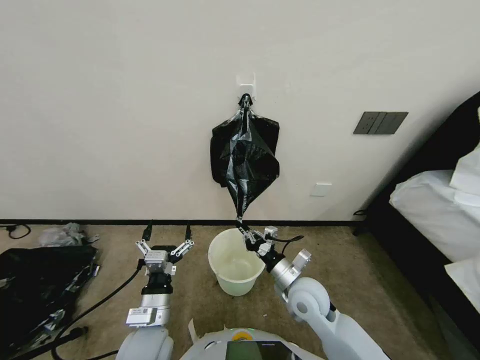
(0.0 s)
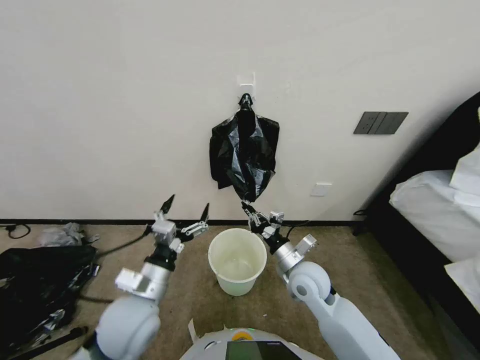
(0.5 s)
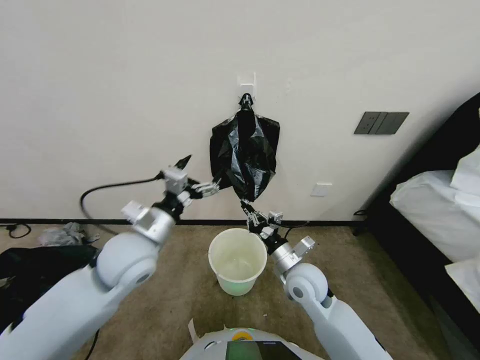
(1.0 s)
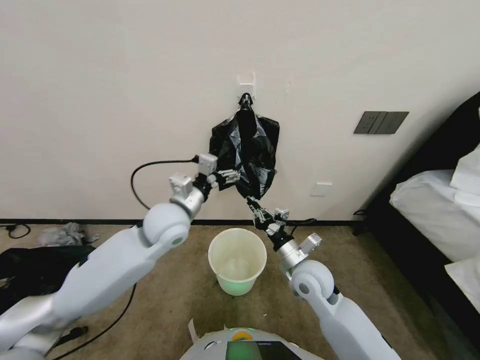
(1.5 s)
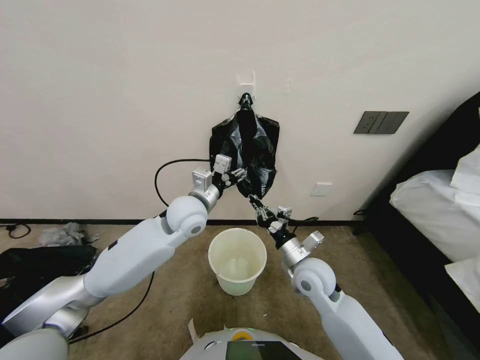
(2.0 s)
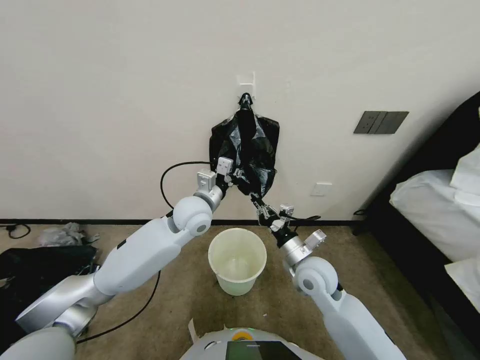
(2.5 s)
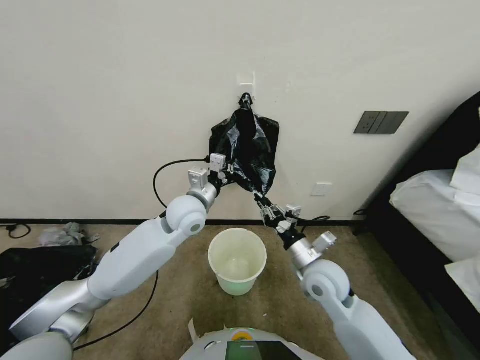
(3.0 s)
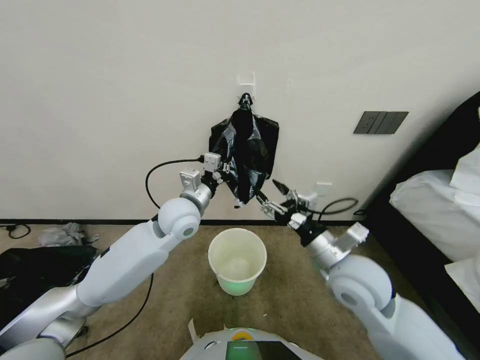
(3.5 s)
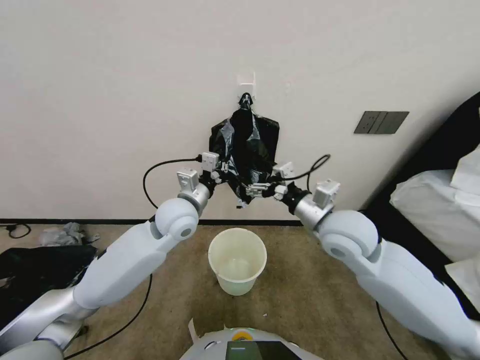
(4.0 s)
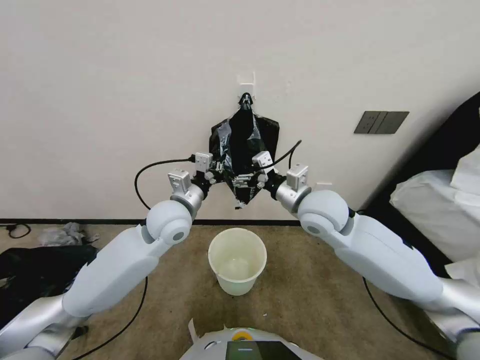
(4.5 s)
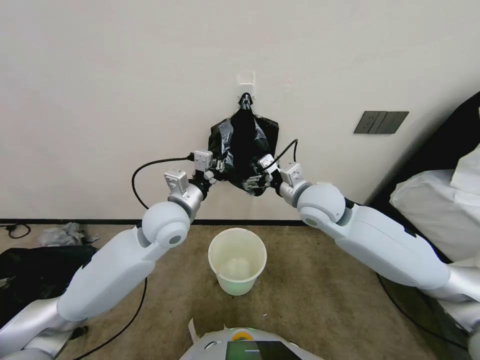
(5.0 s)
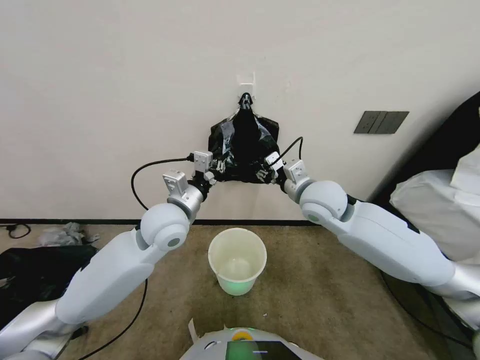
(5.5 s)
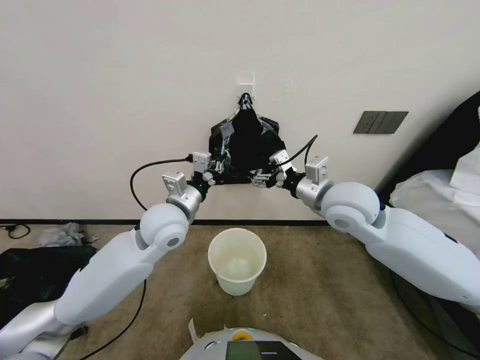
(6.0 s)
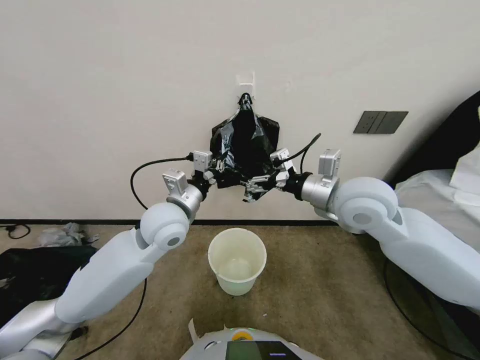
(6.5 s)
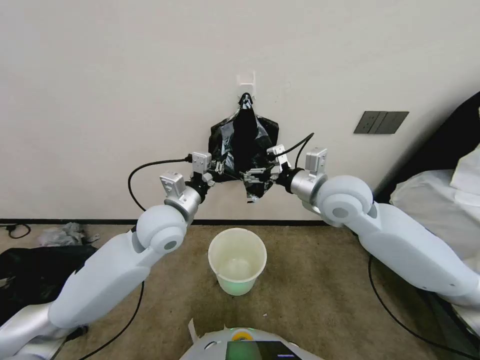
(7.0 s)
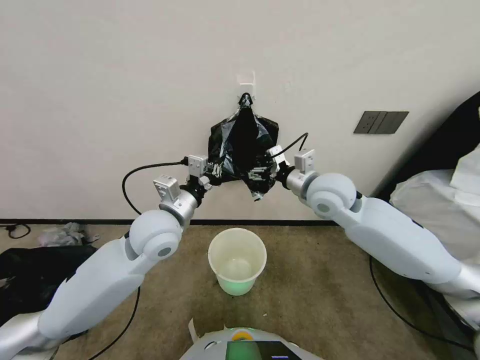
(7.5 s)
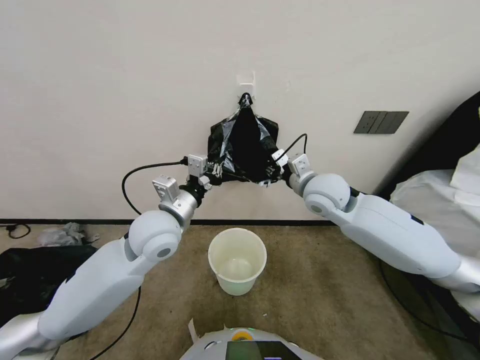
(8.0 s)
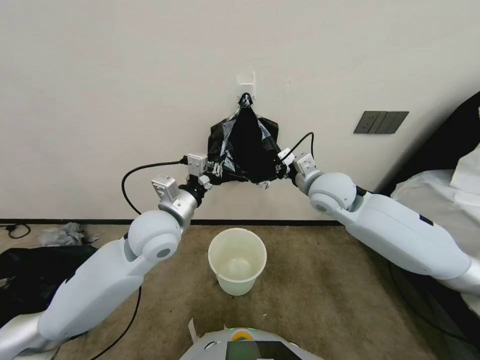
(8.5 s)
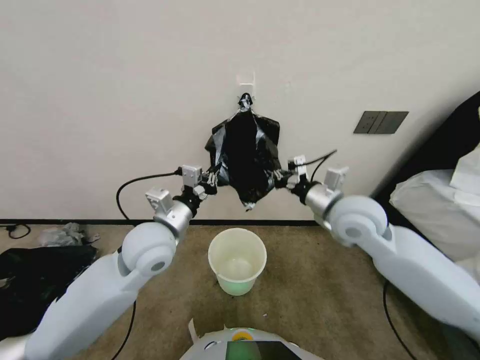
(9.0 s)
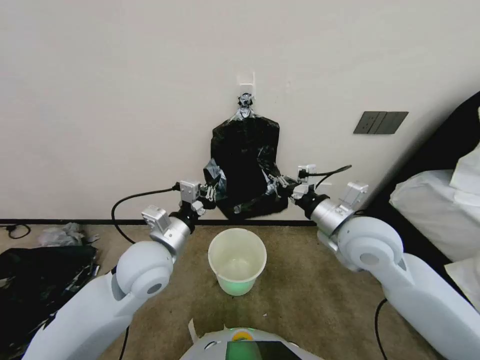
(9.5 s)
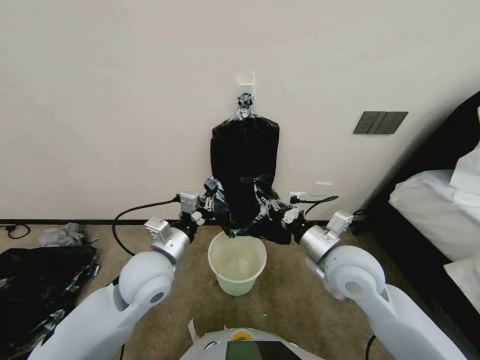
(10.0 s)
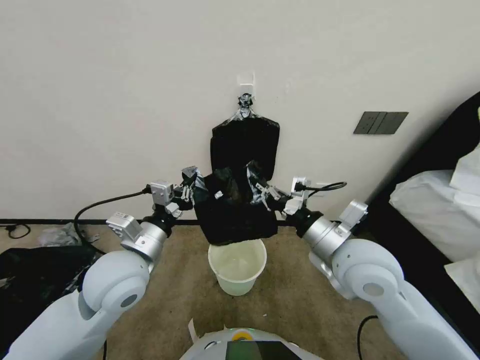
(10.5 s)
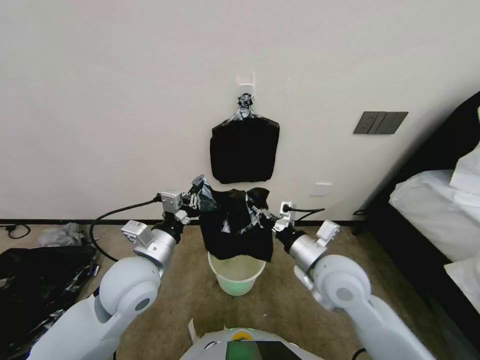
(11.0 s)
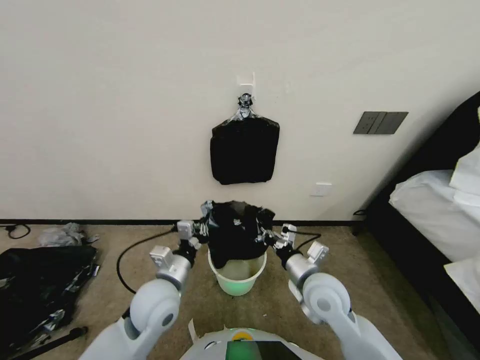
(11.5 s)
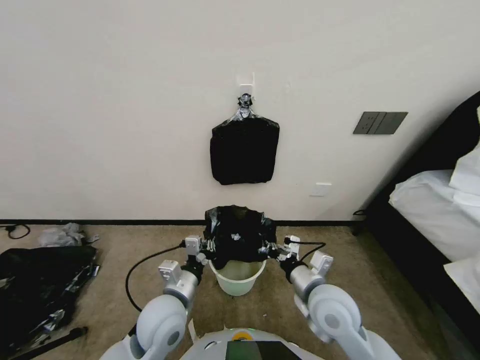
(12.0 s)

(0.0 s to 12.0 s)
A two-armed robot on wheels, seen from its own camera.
Task of the whole recording: Place a trash bag onto the trash bin.
0.0 s - 2.0 s: The right gripper shifts by about 5 cm. The left gripper heads forward and upward, covering approximately 30 cm.
2.0 s - 4.0 s: The right gripper heads upward, covering roughly 15 cm, and opens up. The left gripper closes its fingers.
4.0 s - 6.0 s: The right gripper is displaced forward by roughly 5 cm.
6.0 s - 8.0 s: The right gripper shifts approximately 5 cm forward.
8.0 s - 10.0 s: The left gripper heads backward and downward, covering some 10 cm. Meanwhile the right gripper is displaced backward and downward by about 15 cm, and closes up.
10.0 s - 12.0 s: The left gripper goes approximately 10 cm downward and backward, while the right gripper travels downward by roughly 10 cm.

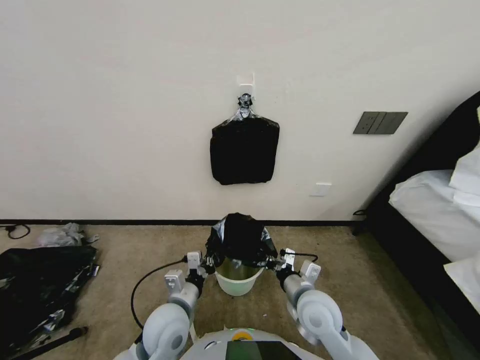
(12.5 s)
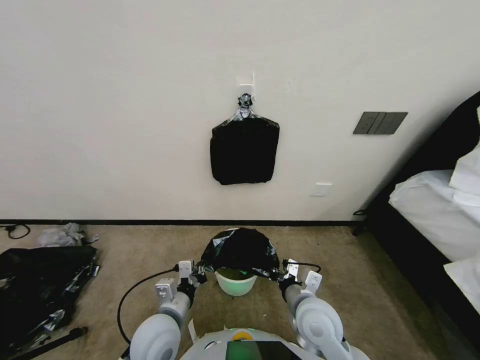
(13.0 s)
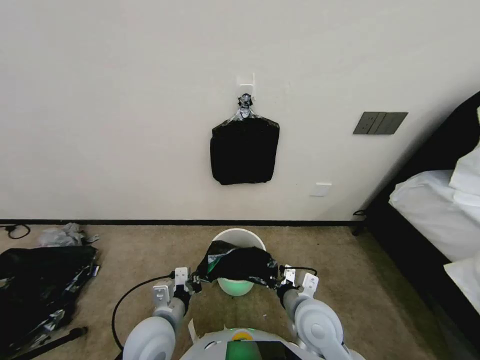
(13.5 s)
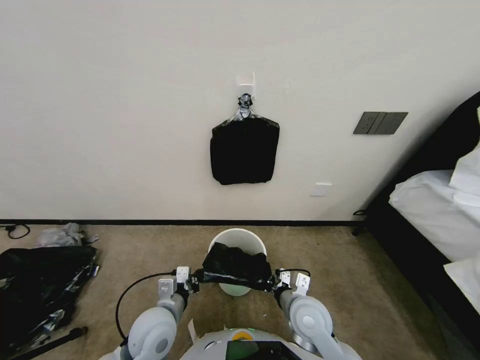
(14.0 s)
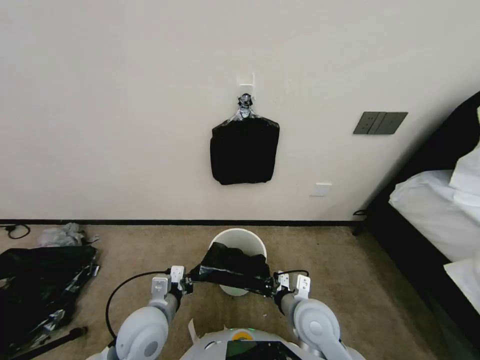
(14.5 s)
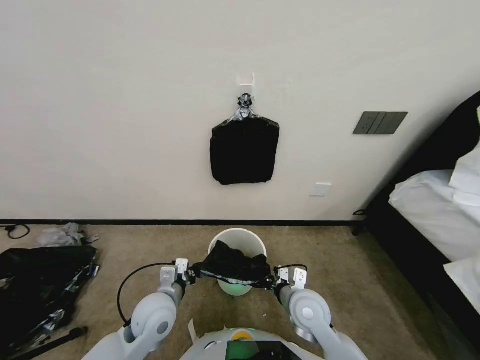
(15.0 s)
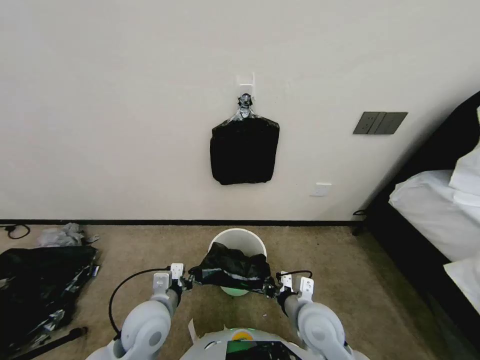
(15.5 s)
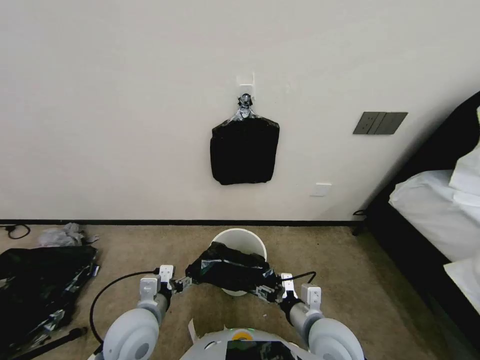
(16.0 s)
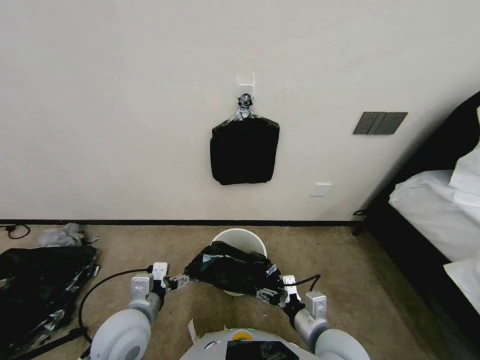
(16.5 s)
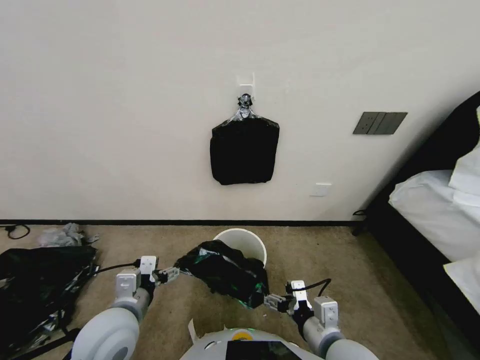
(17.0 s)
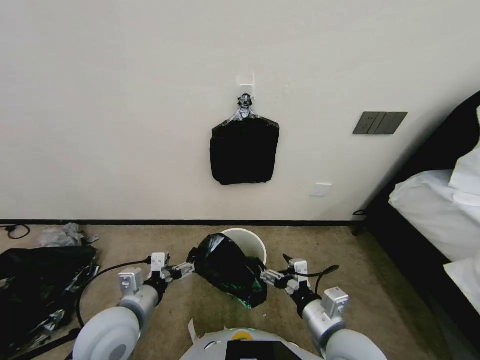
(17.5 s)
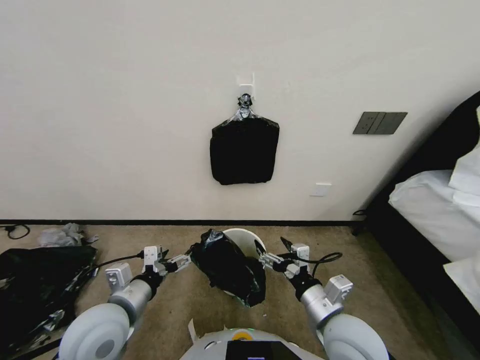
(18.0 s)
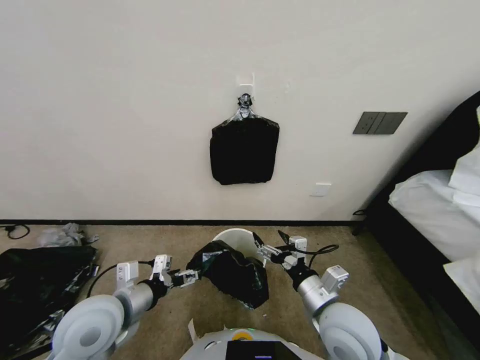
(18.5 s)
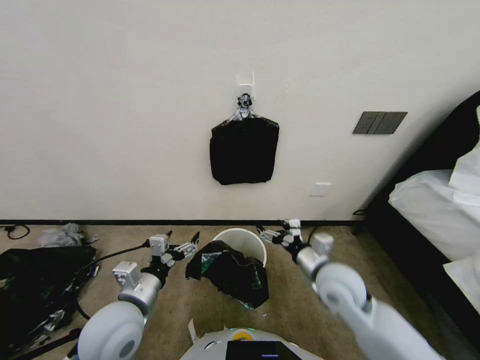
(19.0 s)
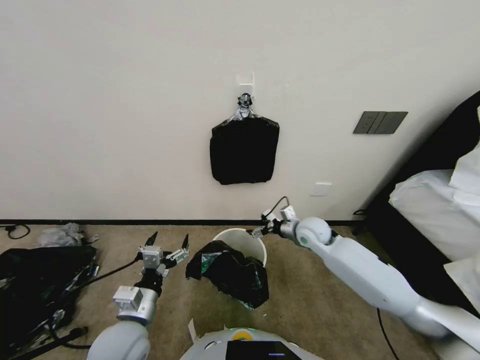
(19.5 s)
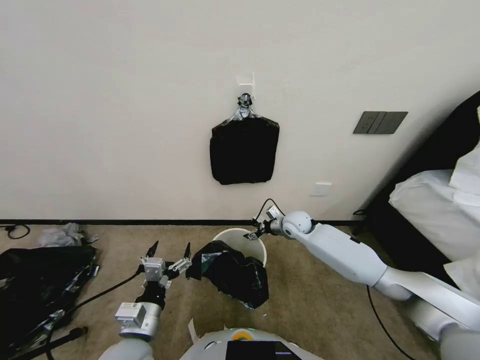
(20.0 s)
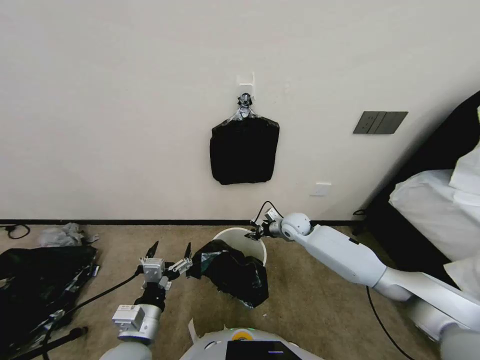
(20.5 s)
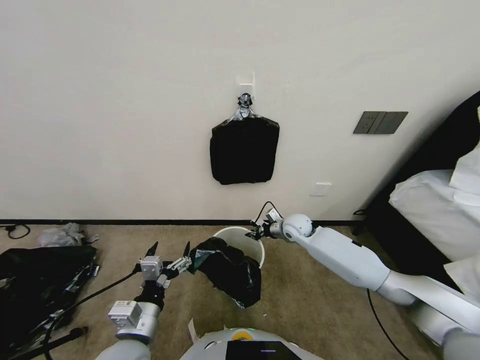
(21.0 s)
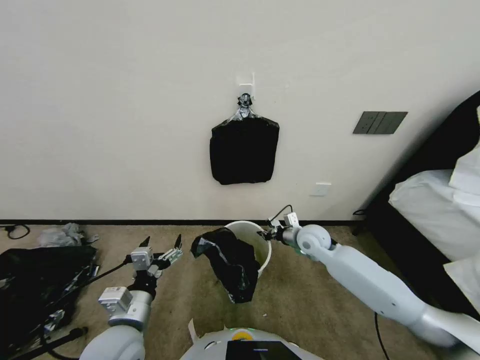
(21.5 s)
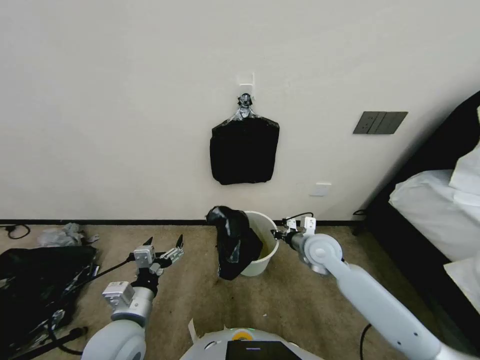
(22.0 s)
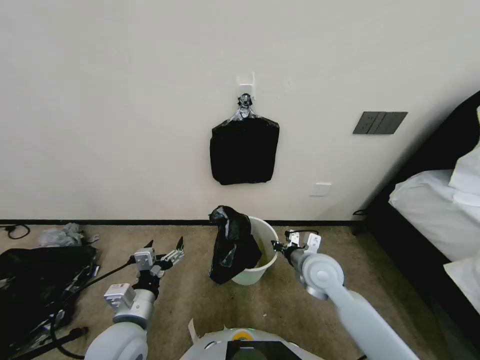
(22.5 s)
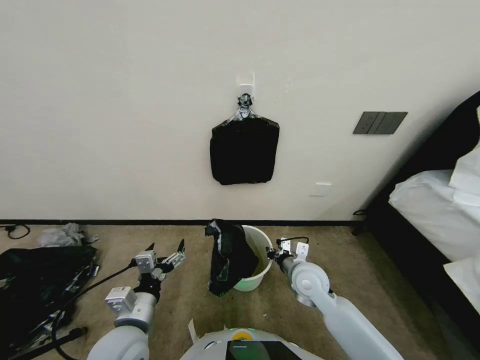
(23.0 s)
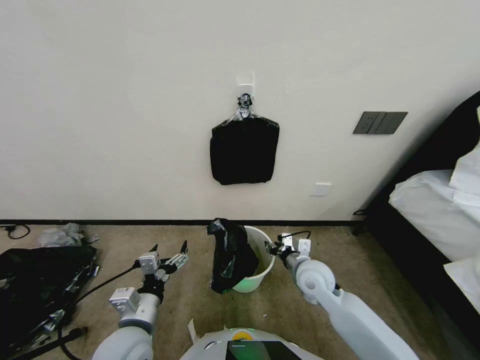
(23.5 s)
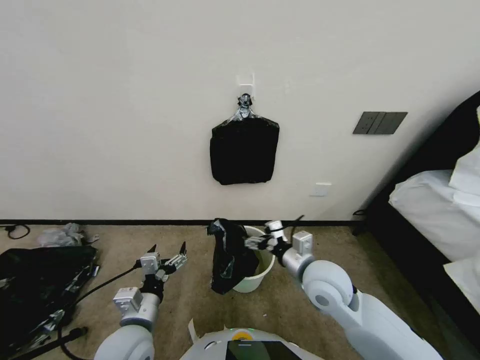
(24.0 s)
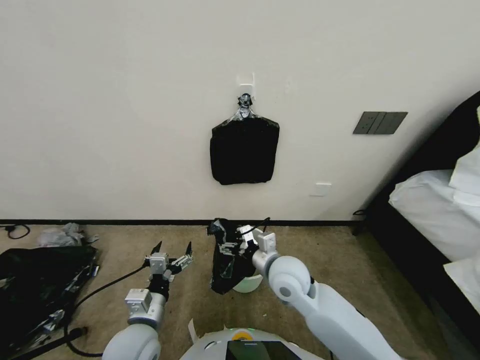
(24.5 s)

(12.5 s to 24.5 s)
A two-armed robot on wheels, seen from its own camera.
Task of the whole recording: Place a trash bag onto the trash bin.
14.5 s - 16.5 s: The right gripper travels backward by about 5 cm, and opens its fingers; the left gripper opens its fingers.
16.5 s - 18.5 s: Both grippers travel together upward, roughly 5 cm.
18.5 s - 20.5 s: The right gripper heads forward, covering about 30 cm, and closes its fingers. The left gripper heads downward, backward and to the right, covering about 10 cm.
20.5 s - 22.5 s: The right gripper goes about 15 cm backward.
22.5 s - 24.5 s: The right gripper heads to the left, covering some 10 cm, and opens up.

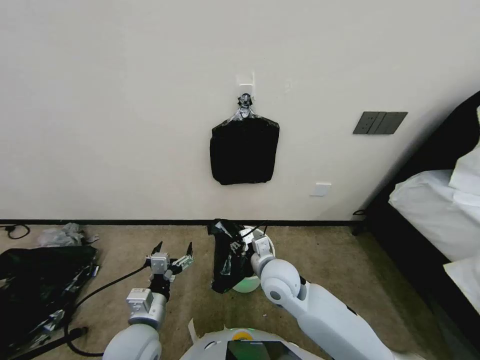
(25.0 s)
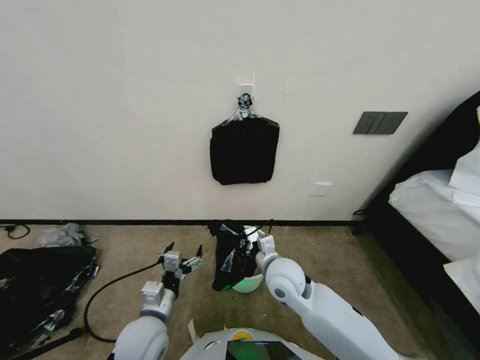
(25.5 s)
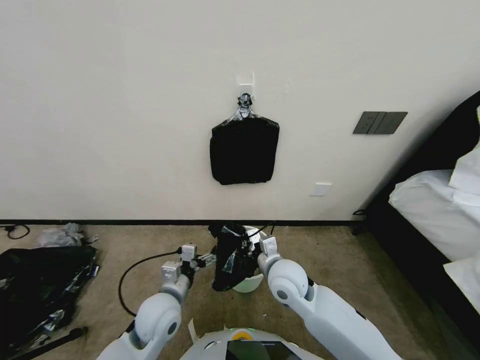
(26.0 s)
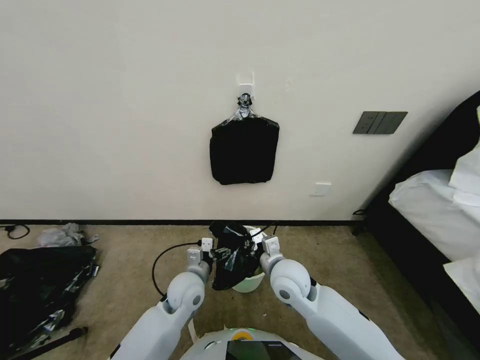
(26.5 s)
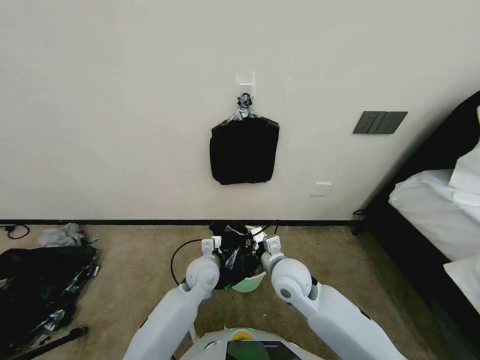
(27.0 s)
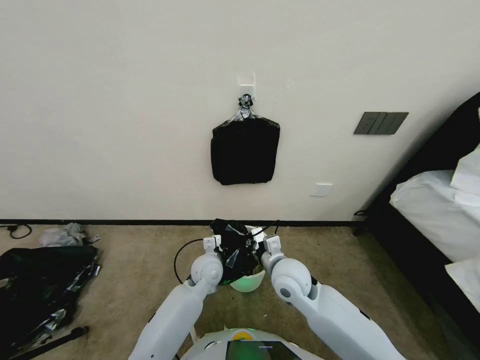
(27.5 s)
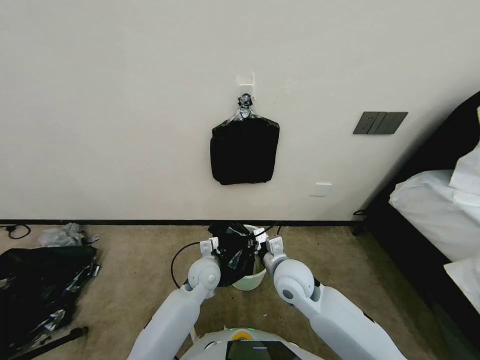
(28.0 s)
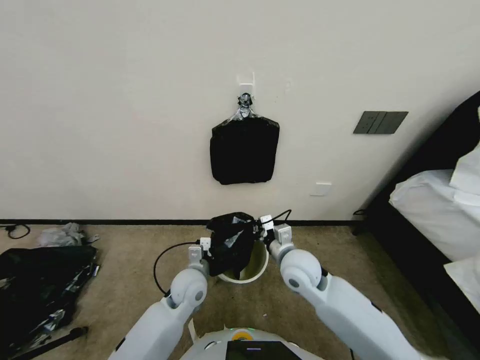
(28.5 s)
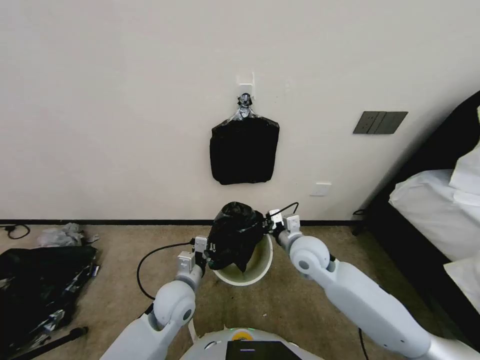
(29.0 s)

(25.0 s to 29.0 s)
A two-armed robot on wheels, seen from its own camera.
Task of the whole recording: Place a trash bag onto the trash bin.
25.0 s - 27.0 s: The left gripper travels forward and to the right by about 20 cm. The right gripper closes.
27.0 s - 29.0 s: The right gripper is displaced forward and to the right by about 5 cm. Meanwhile the left gripper moves backward, some 5 cm, and closes its fingers.
